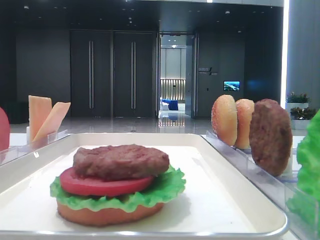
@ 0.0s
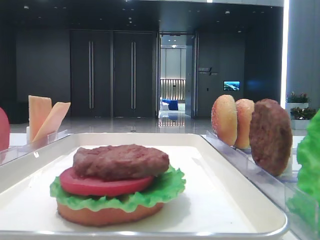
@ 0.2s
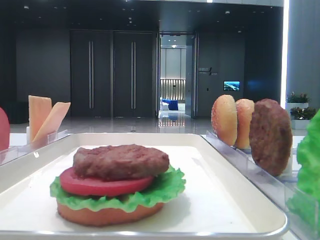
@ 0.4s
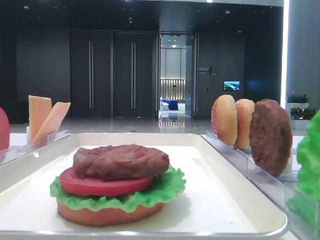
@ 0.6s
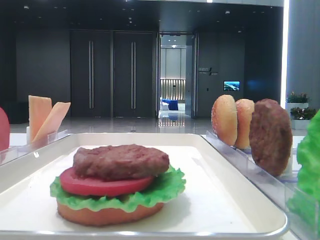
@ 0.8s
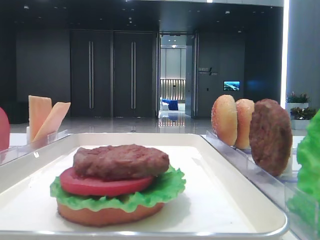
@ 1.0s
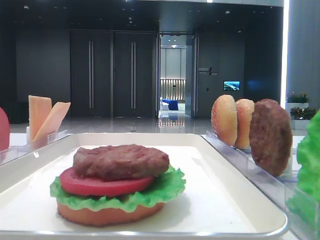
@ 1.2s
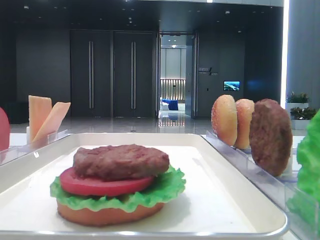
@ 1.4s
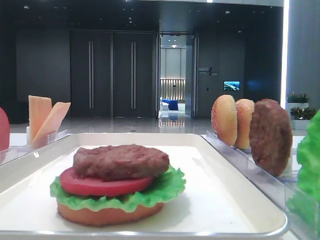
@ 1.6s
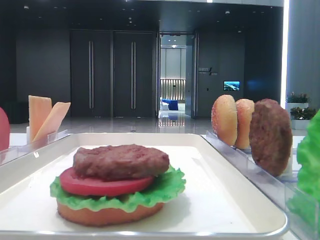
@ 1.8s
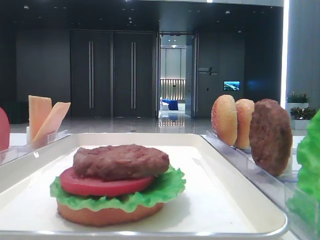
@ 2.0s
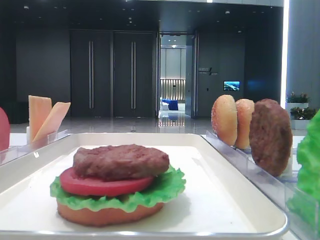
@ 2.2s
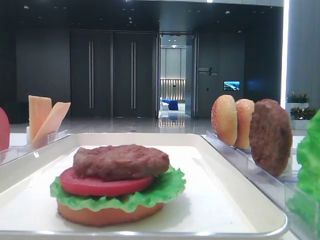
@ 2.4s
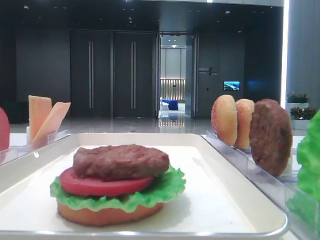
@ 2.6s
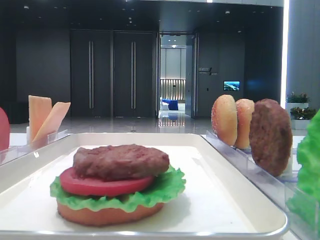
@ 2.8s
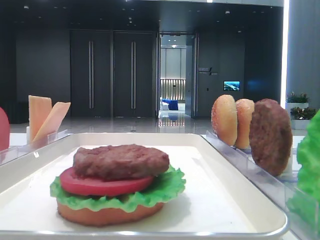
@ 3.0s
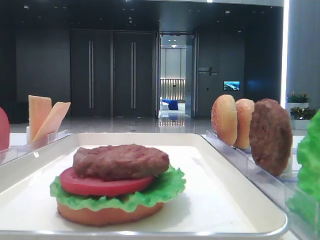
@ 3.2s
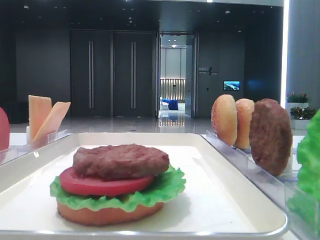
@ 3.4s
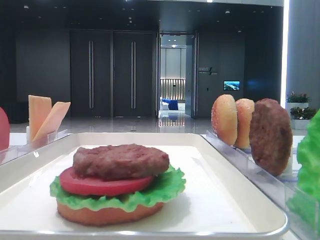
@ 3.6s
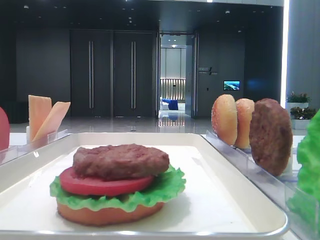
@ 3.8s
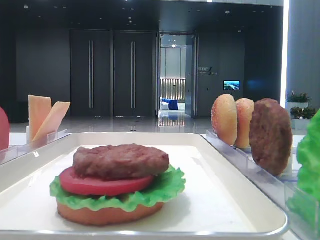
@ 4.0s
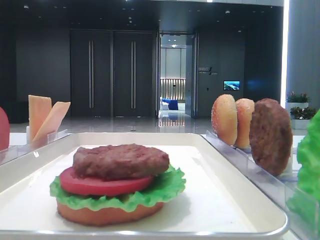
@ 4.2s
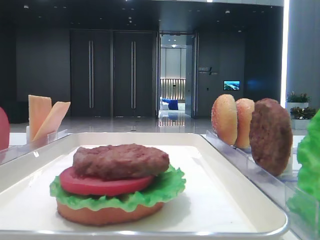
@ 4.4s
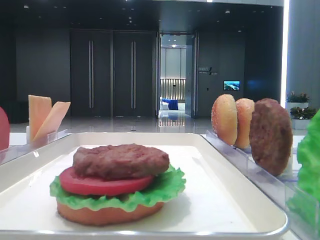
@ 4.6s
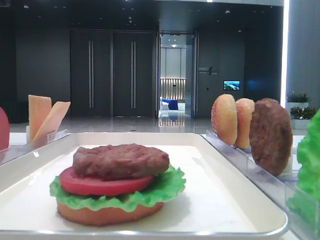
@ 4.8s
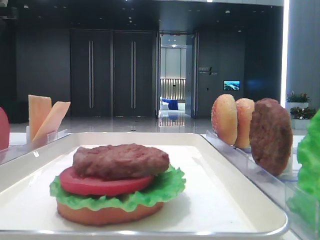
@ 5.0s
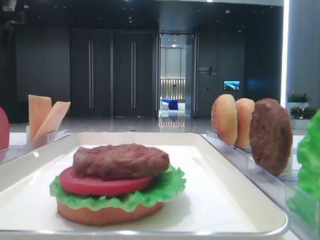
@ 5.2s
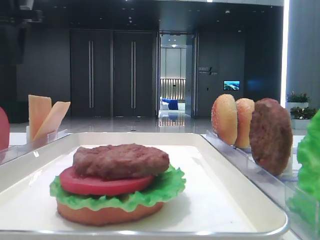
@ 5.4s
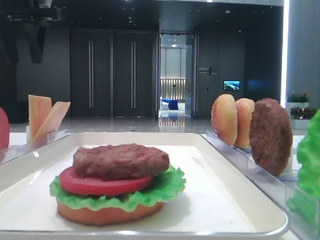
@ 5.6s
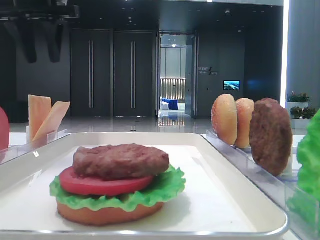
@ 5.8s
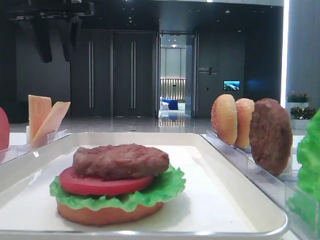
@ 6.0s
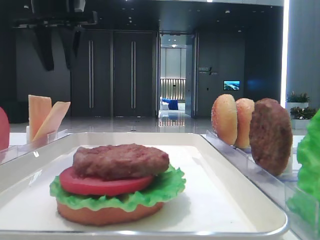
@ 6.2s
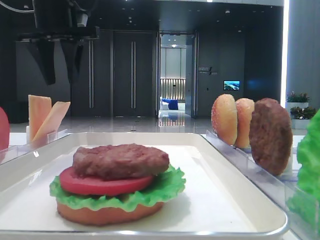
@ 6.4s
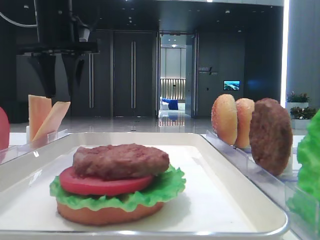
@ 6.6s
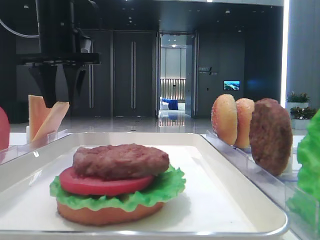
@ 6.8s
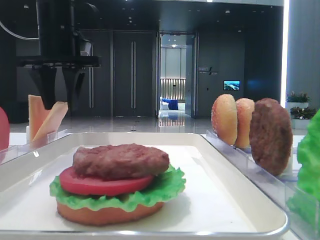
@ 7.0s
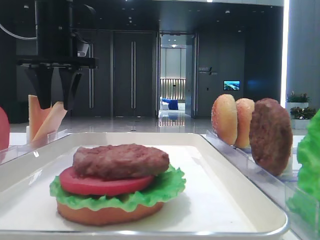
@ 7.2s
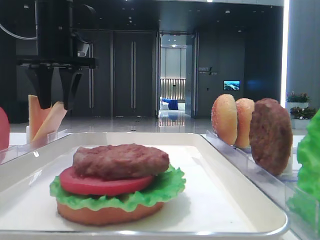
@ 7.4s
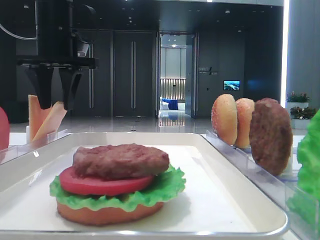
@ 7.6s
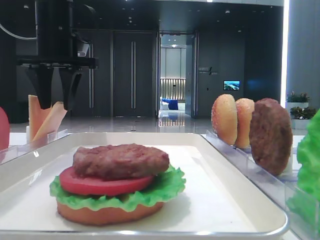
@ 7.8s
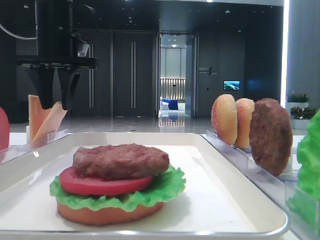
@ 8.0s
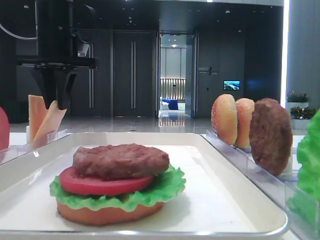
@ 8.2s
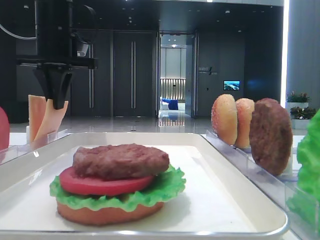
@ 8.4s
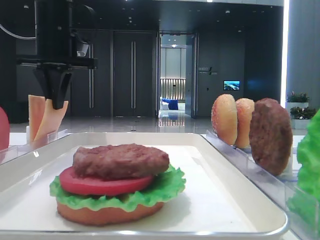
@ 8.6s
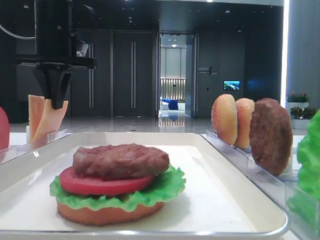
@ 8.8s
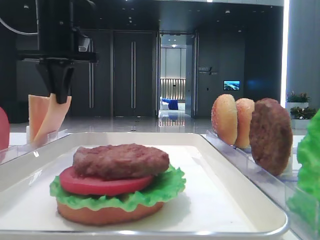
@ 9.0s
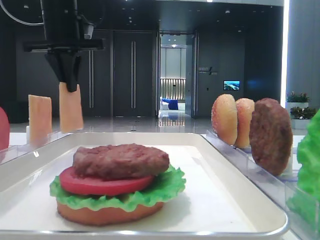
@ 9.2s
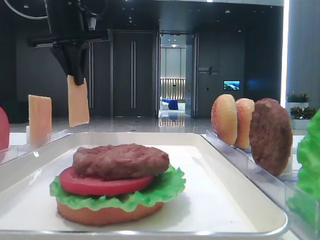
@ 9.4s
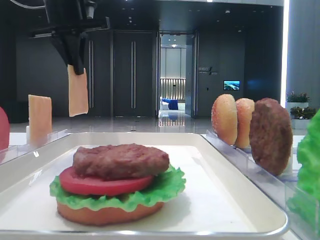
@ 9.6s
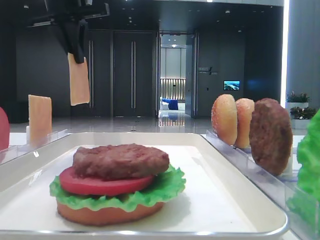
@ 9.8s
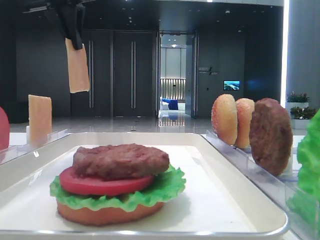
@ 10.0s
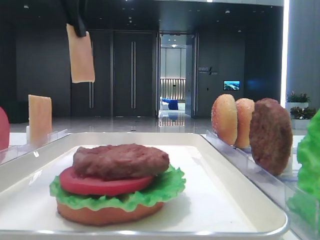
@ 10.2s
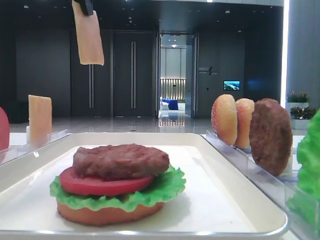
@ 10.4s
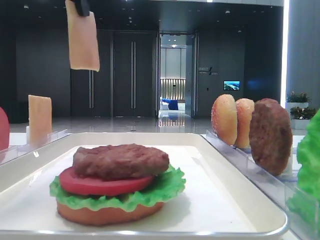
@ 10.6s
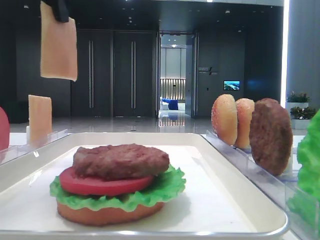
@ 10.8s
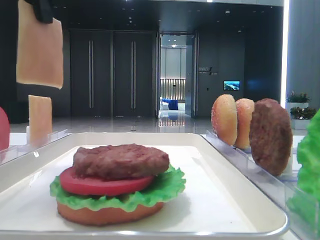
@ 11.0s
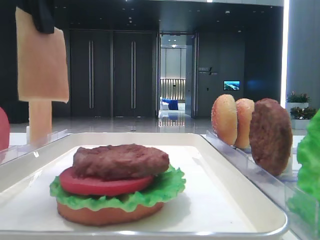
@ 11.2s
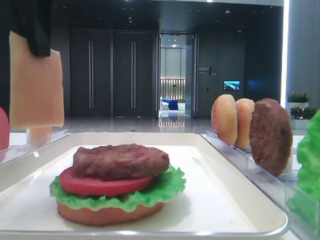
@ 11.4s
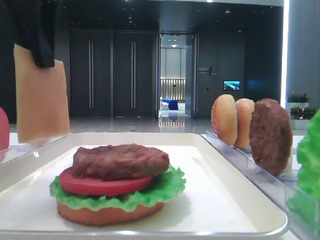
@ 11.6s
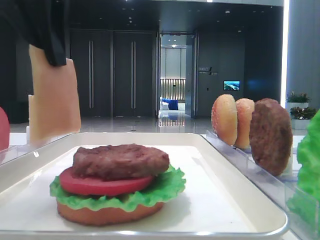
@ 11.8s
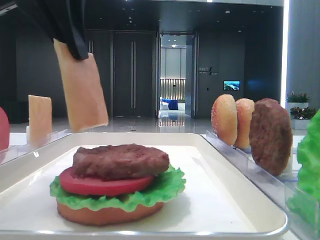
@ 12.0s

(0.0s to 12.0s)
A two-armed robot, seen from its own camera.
Step, 0.0s - 8.8s: Pick up the cheese slice with the left hand.
4.4s - 6.0s: The left gripper moves to the right and forward, about 15 cm.
6.0s - 7.6s: The left gripper travels downward by about 10 cm.
7.6s - 9.0s: The left gripper closes its fingers.
9.0s - 10.4s: The left gripper is displaced upward and backward by approximately 15 cm.
10.4s - 12.0s: The left gripper travels backward and downward by some 15 cm.

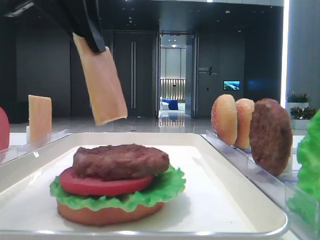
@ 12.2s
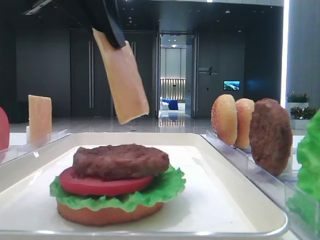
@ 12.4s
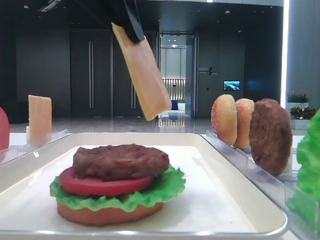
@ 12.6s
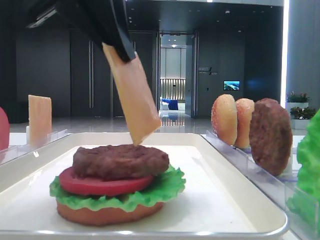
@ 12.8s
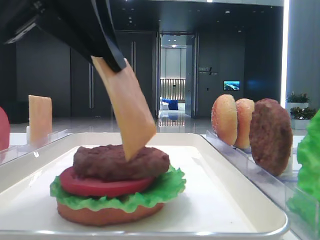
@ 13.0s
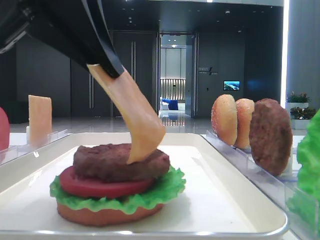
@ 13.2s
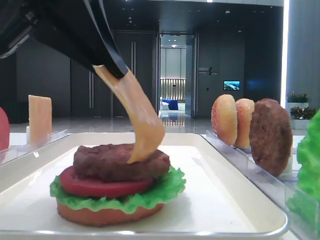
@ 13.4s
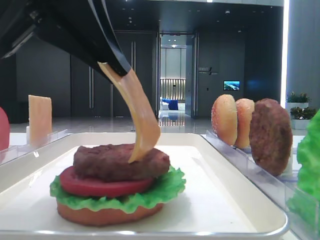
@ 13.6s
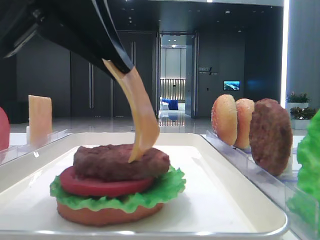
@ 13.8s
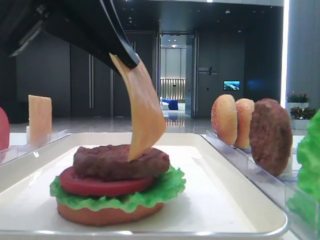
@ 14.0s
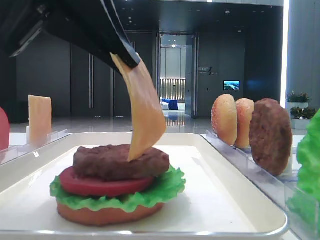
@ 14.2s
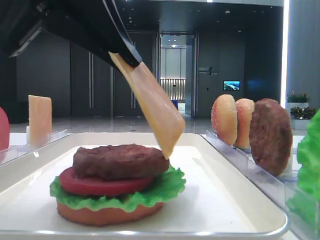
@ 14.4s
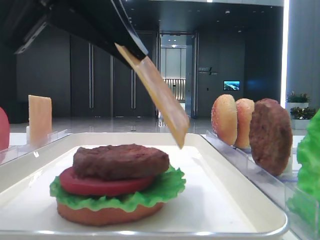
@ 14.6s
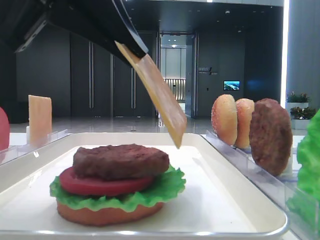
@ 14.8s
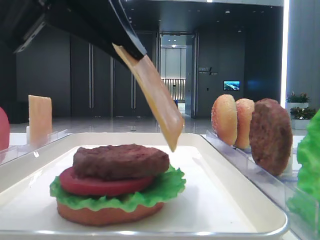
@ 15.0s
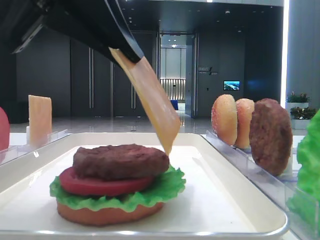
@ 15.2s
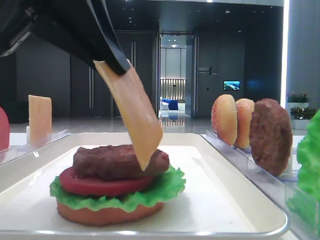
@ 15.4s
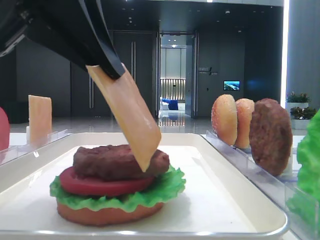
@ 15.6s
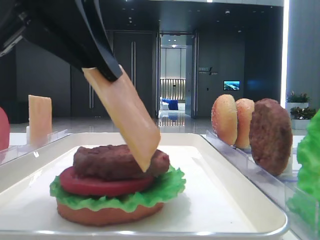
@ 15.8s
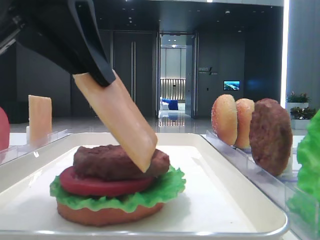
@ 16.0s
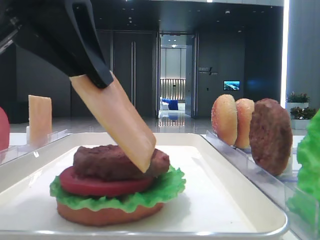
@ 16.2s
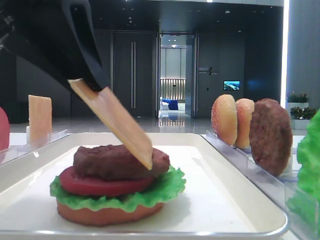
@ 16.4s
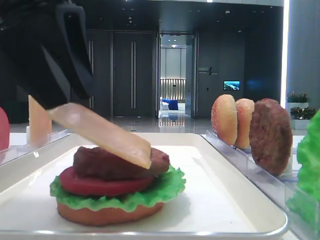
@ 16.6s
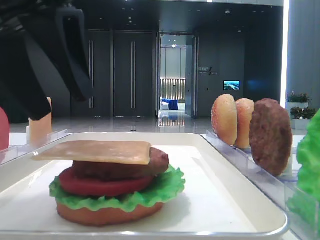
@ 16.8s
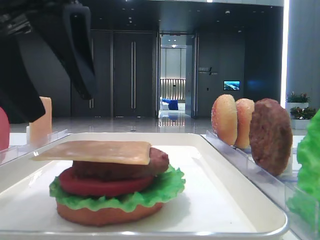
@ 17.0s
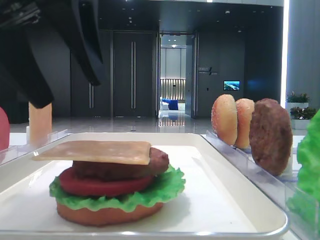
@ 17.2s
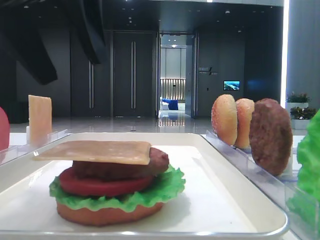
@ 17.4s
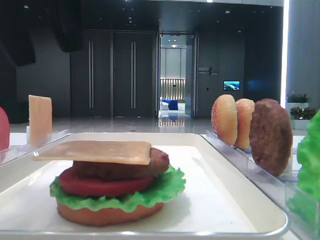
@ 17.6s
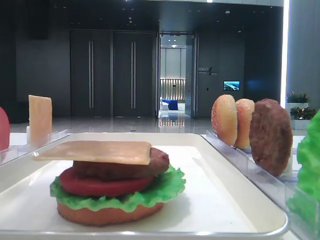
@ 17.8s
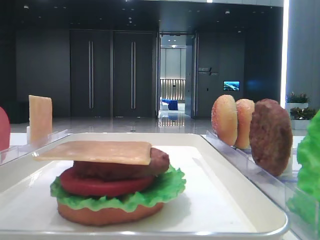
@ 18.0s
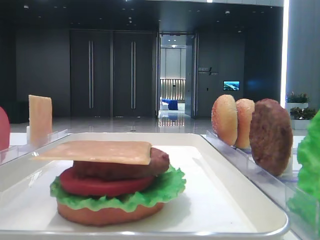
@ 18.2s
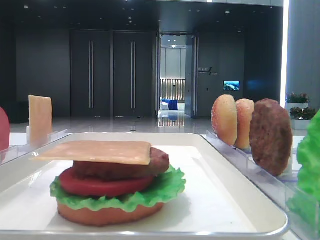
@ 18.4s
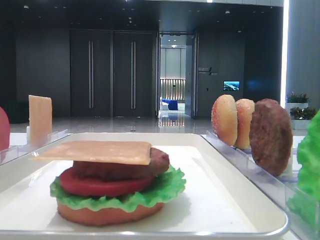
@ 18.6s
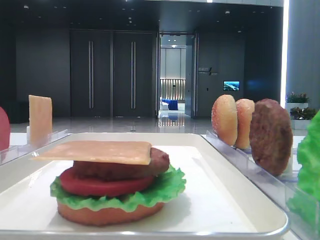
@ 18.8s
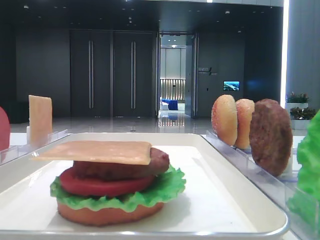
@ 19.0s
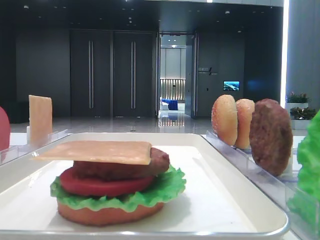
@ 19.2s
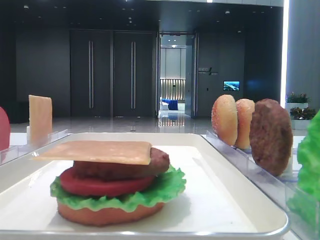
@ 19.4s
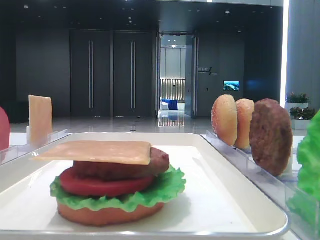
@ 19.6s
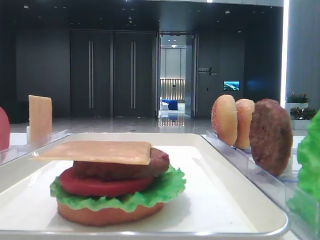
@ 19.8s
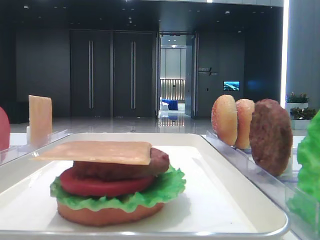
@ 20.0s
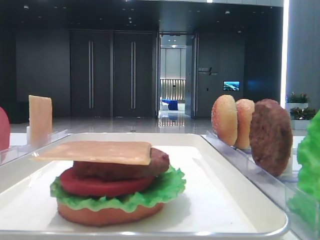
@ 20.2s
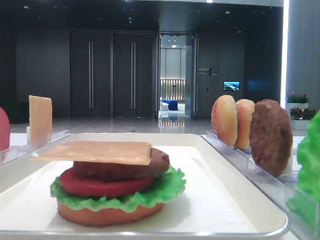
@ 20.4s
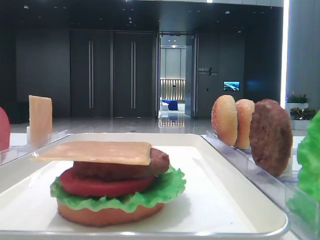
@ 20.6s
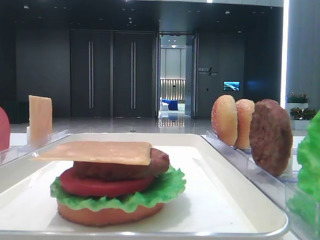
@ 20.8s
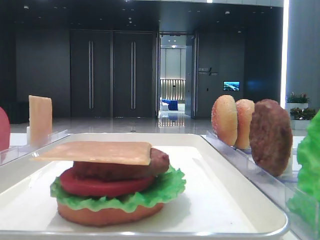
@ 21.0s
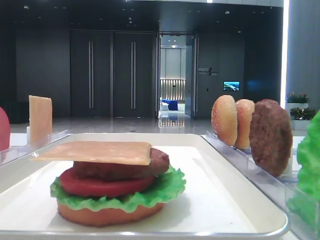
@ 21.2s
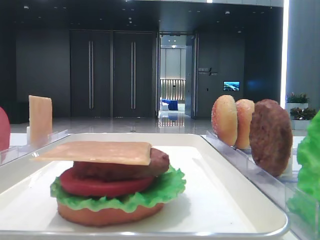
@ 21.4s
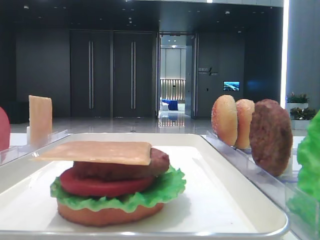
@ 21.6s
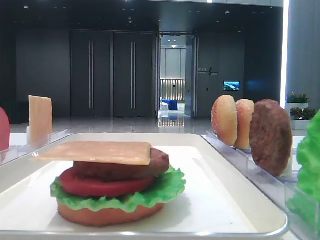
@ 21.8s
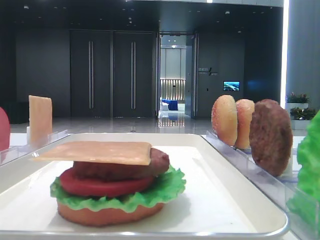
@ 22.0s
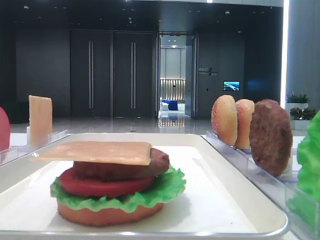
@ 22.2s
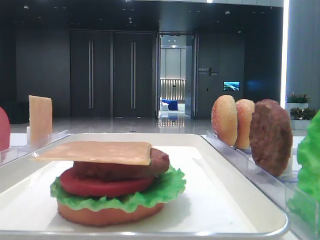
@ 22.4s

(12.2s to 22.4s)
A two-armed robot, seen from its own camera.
Step, 12.2s - 16.6s: Place the cheese slice on the patty with the left hand.
12.2s - 13.6s: The left gripper heads backward and downward, covering approximately 10 cm.
13.6s - 15.2s: There are only small adjustments of the grippers.
15.2s - 16.6s: The left gripper opens up.
16.6s - 18.0s: The left gripper travels upward by roughly 10 cm, and opens its fingers.
18.0s - 19.4s: The left gripper moves to the left, about 15 cm.
